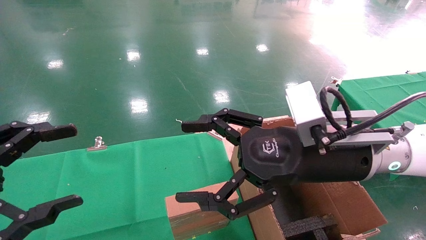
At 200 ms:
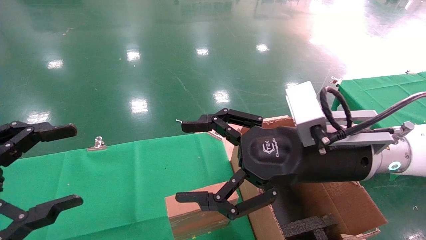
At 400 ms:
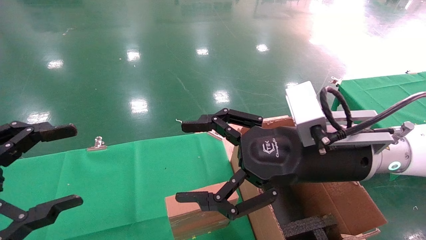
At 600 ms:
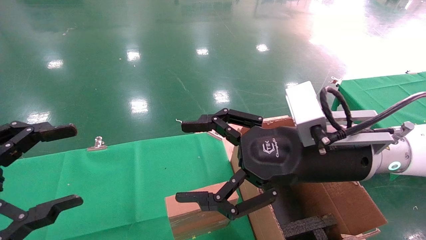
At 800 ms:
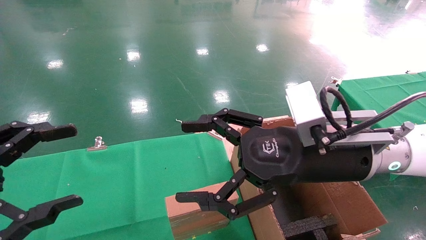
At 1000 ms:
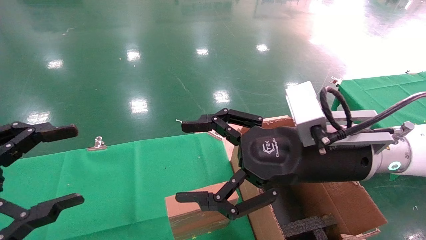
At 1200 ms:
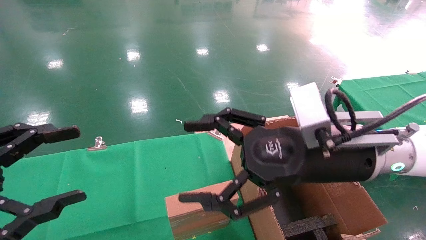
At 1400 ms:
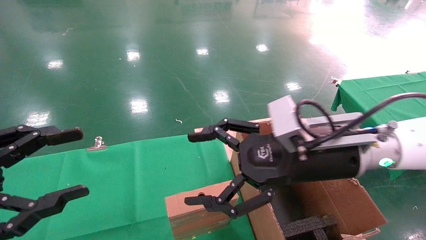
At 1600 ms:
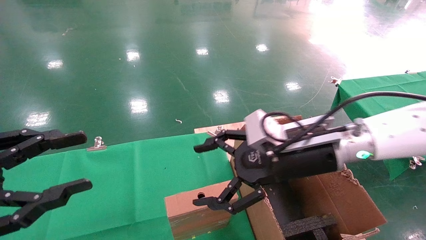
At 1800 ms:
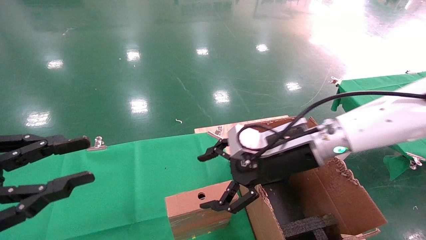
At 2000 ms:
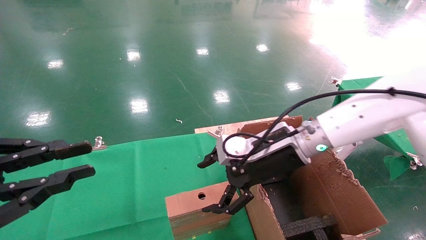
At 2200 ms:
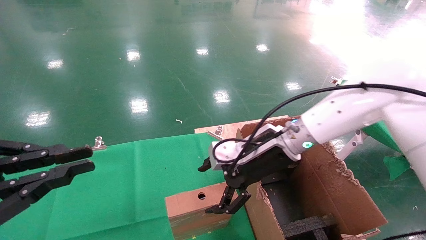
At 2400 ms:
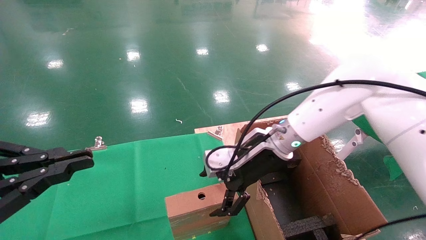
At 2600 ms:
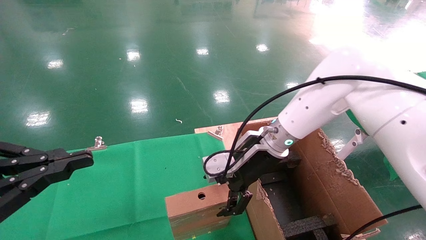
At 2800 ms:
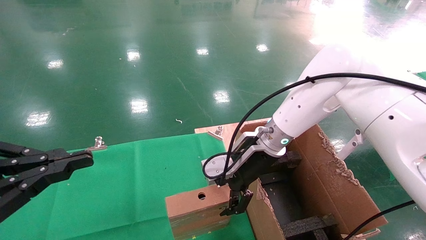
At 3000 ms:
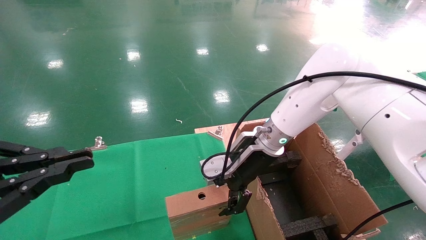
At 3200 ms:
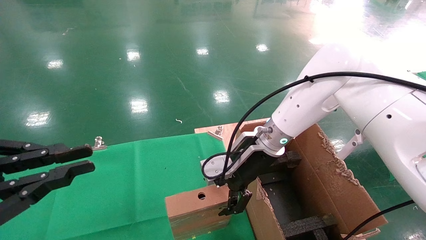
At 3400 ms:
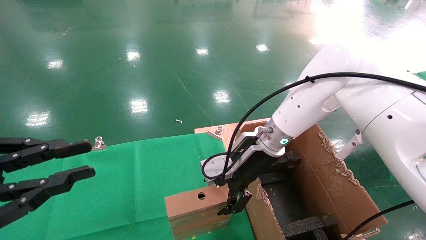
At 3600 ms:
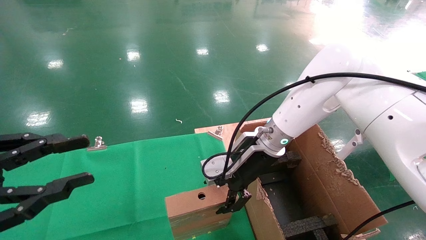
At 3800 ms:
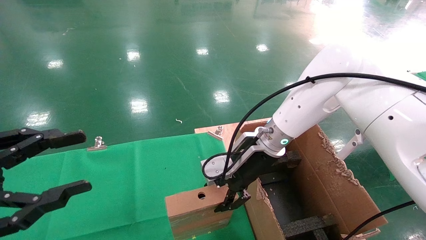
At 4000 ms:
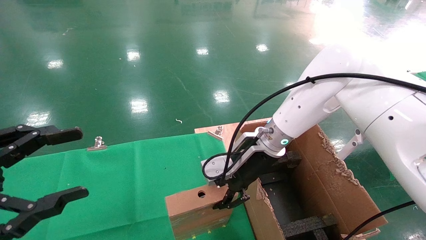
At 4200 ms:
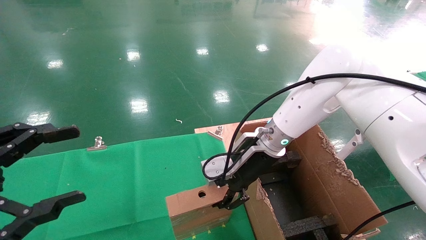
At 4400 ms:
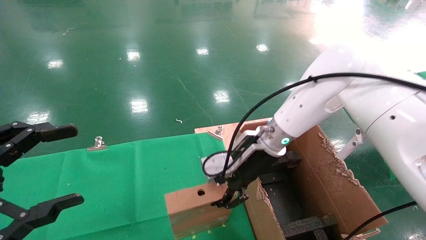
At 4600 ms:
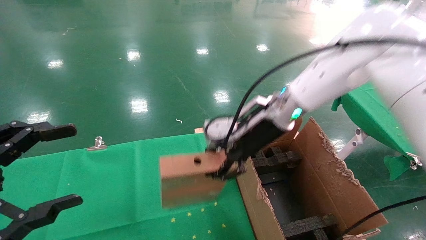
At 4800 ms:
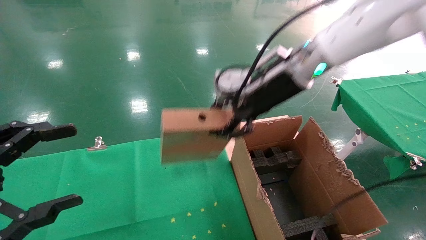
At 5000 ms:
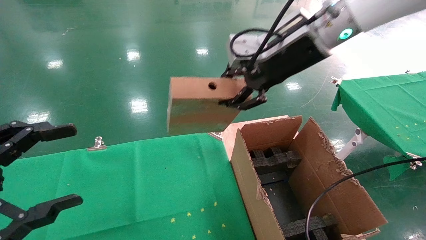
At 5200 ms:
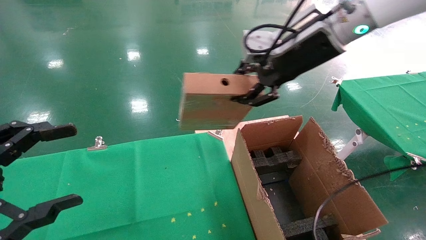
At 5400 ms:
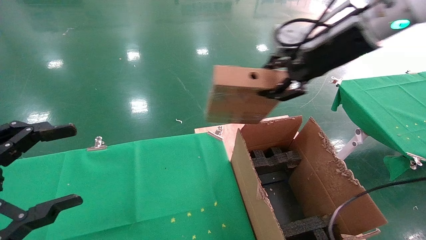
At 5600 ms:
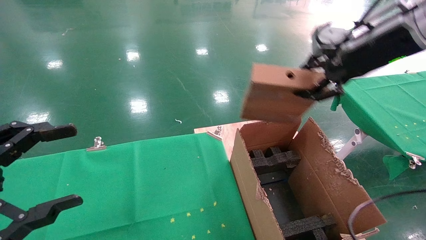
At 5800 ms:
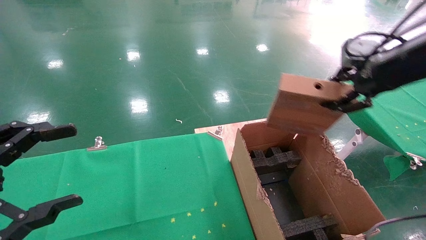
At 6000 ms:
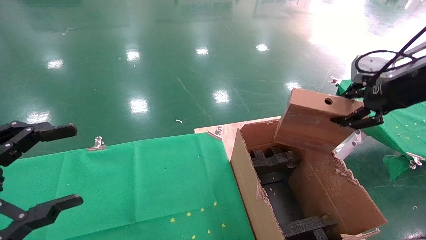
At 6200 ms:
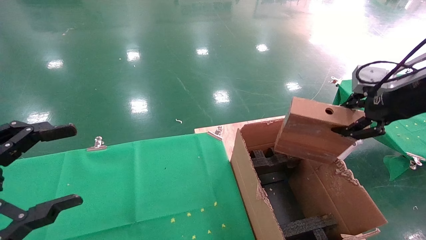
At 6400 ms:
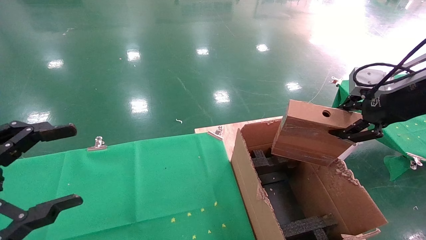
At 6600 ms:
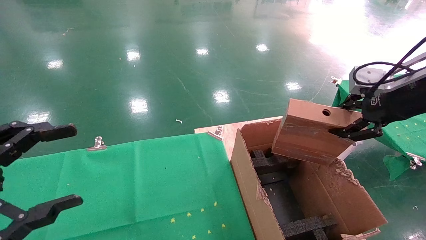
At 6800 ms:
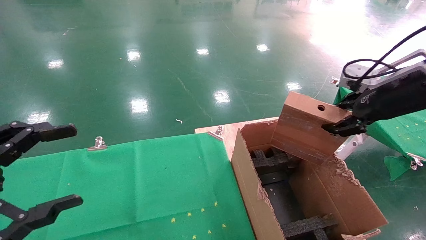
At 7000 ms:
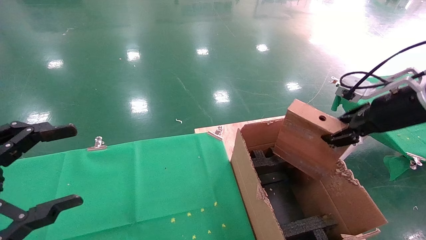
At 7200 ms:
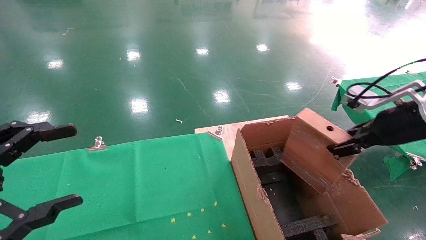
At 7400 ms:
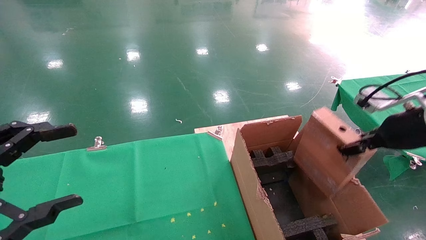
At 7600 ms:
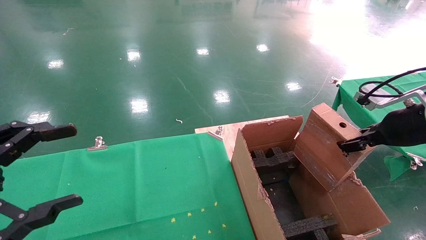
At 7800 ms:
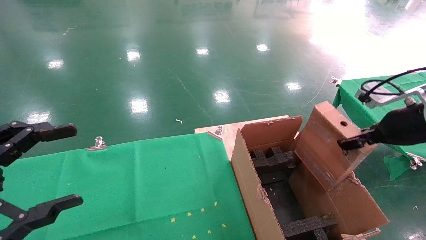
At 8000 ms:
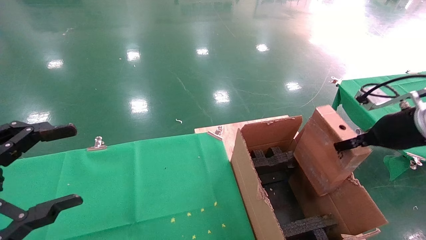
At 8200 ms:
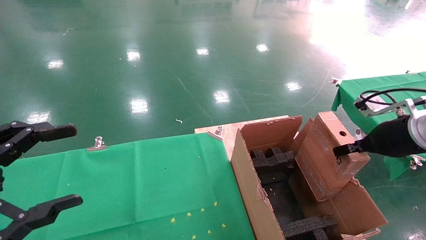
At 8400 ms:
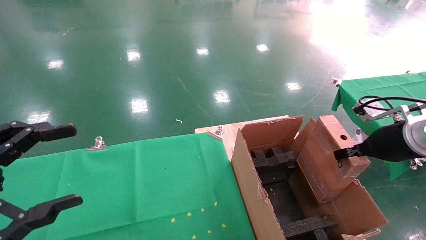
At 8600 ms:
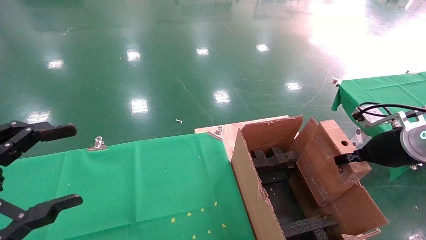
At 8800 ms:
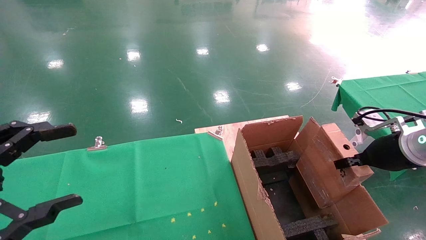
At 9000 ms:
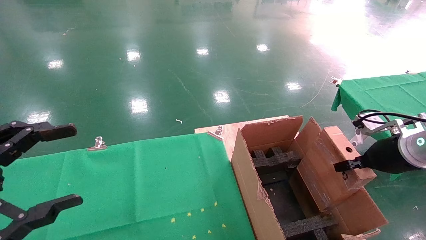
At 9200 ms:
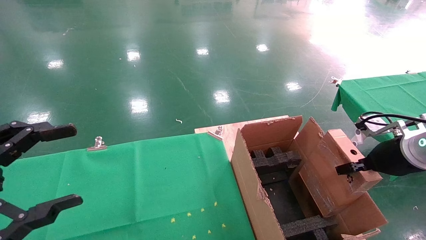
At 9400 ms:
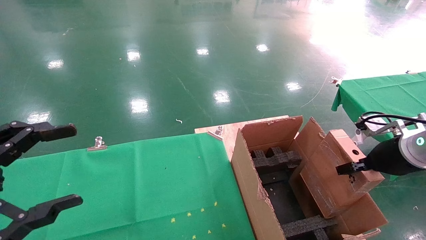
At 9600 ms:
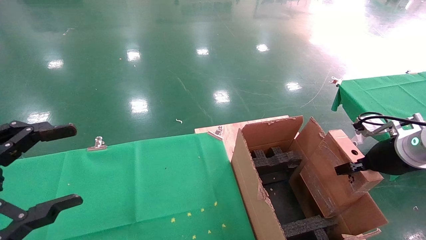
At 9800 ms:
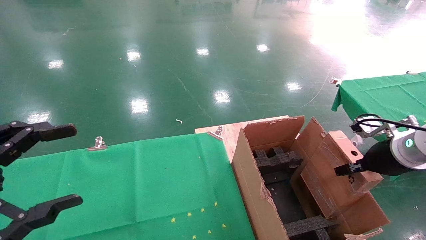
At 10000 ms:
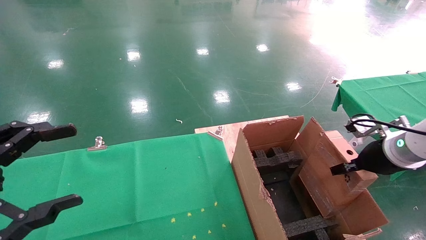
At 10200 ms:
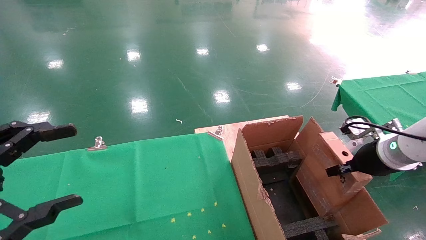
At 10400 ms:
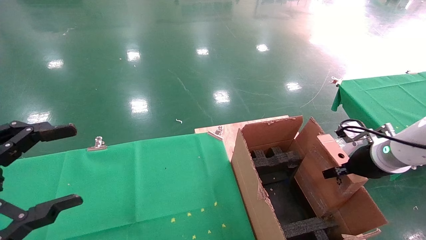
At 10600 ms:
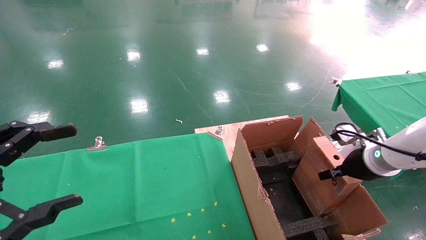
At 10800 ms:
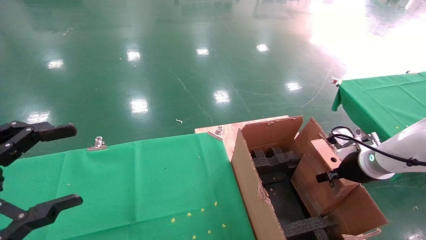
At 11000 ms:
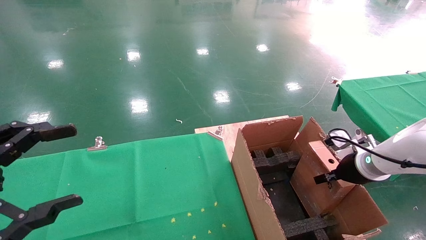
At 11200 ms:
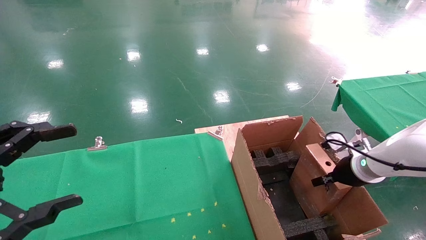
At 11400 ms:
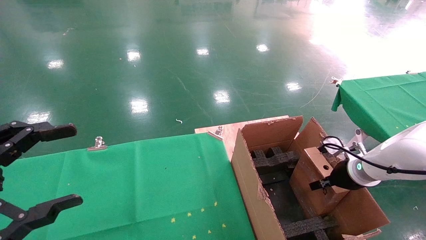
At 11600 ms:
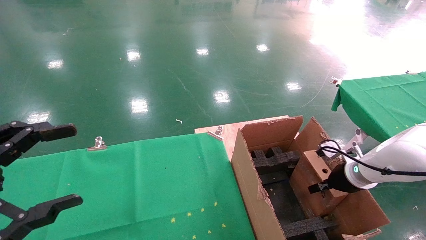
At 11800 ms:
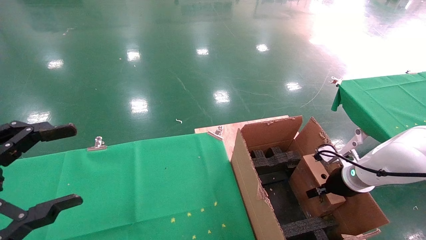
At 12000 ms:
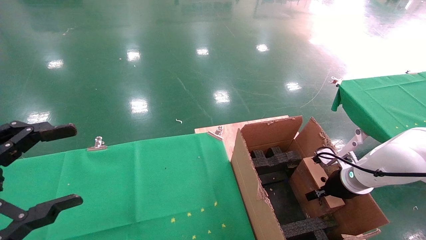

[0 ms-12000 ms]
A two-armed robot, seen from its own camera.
Task of the whole recording: using a robotic arm to pick up a cardboard box and palace it the carton.
Step, 1400 ms to 4000 ms: Pick up the mouse and the power cord paper box.
0 ms to 1600 ms: The right gripper is displaced forward by roughly 5 cm.
1600 ms to 3000 ms: The left gripper closes, while the right gripper goes some 10 cm forward and to the left.
3000 ms to 4400 ms: The right gripper closes its fingers. Meanwhile the left gripper opens its fingers.
4400 ms to 6000 ms: The right gripper shifts roughly 30 cm to the right, upward and backward.
6000 ms to 7600 ms: The right gripper is displaced downward by about 10 cm.
7600 ms to 9000 ms: The right gripper moves downward, approximately 5 cm.
9000 ms to 10400 ms: The right gripper changes place by roughly 5 cm.
10400 ms to 12000 ms: The right gripper heads downward, covering roughly 10 cm.

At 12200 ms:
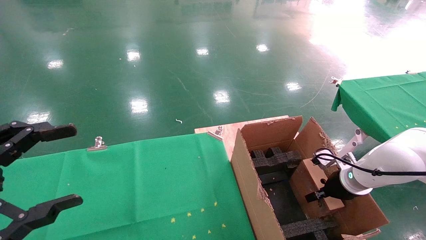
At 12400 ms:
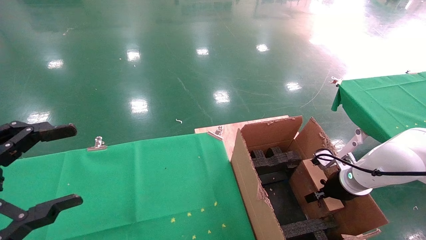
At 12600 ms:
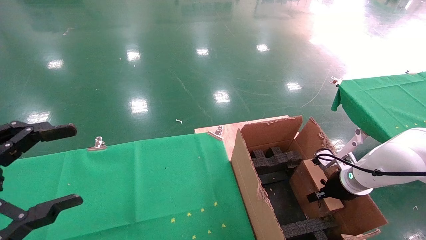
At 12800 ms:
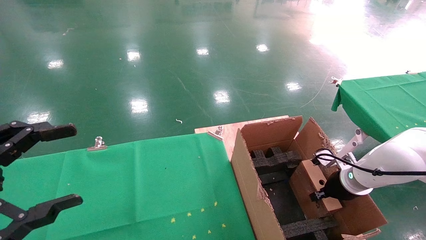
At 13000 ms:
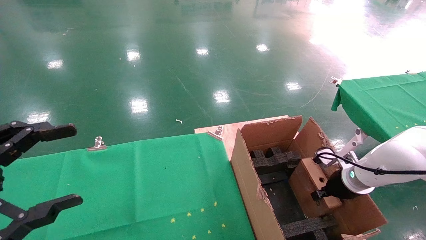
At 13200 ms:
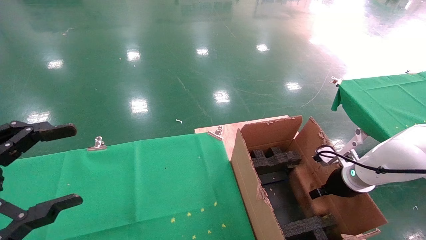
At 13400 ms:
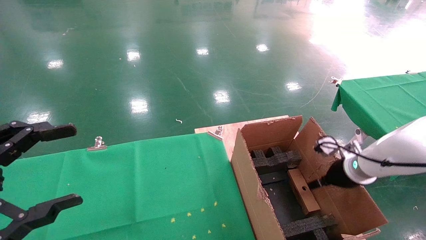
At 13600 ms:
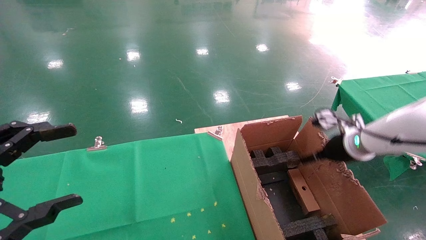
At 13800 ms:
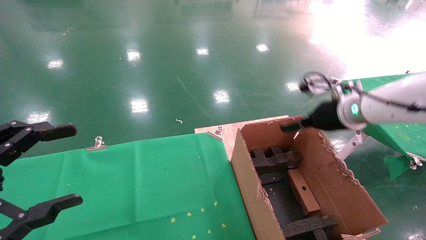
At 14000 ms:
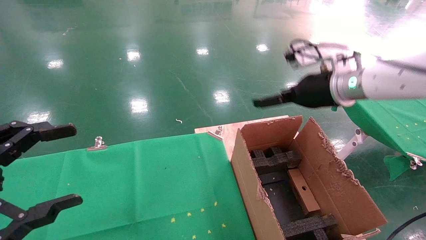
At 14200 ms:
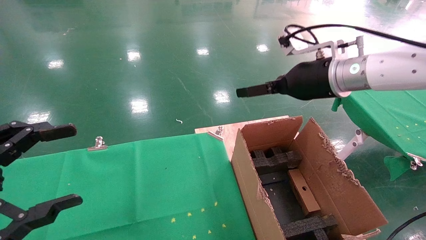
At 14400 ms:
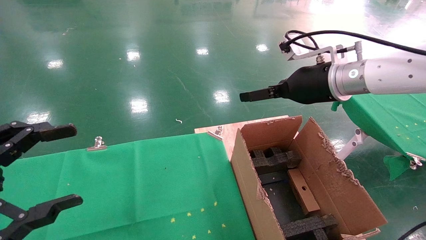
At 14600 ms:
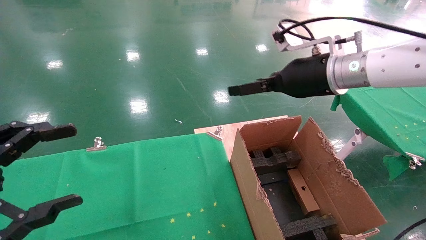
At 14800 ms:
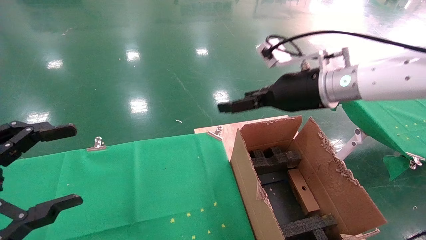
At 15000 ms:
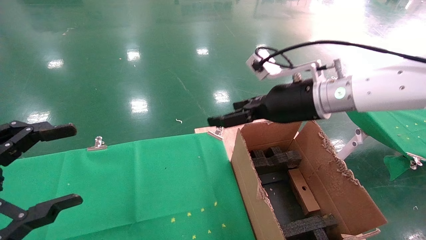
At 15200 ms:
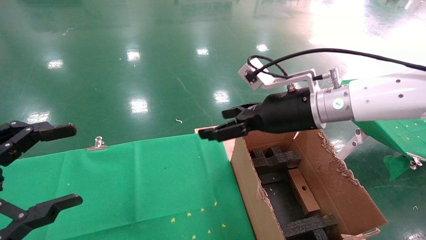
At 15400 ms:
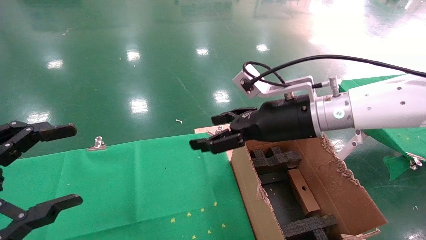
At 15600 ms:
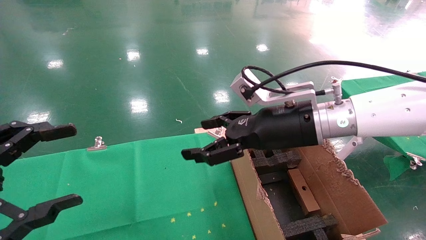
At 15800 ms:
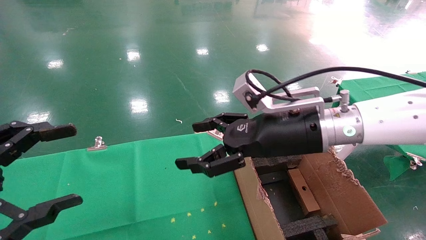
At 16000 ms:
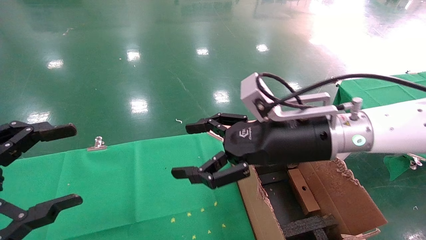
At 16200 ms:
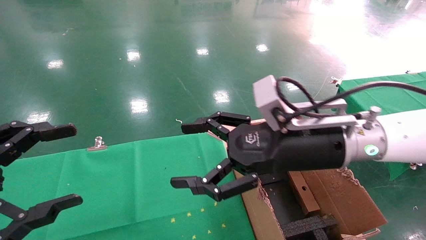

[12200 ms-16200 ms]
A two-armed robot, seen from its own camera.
Task of the whole recording: using a robotic arm to pick up a cardboard box and palace it the carton.
12200 ms to 13600 ms: The right gripper shifts approximately 10 cm upward, and opens its fingers.
13600 ms to 14800 ms: The right gripper moves to the left and upward, approximately 15 cm.
14800 ms to 16200 ms: The right gripper shifts about 10 cm backward.
